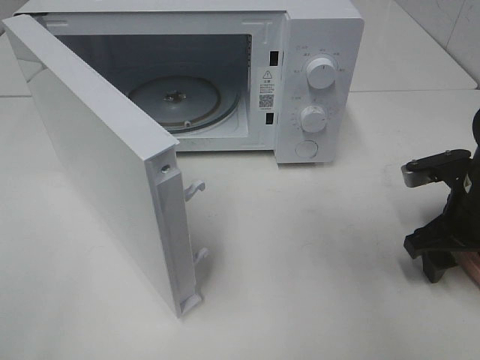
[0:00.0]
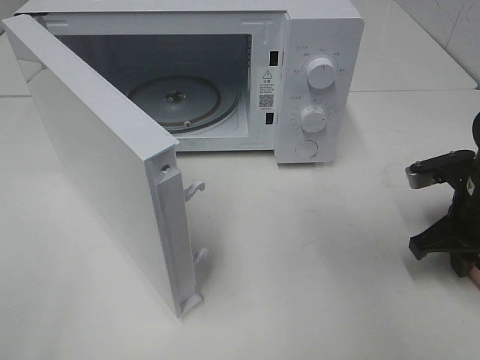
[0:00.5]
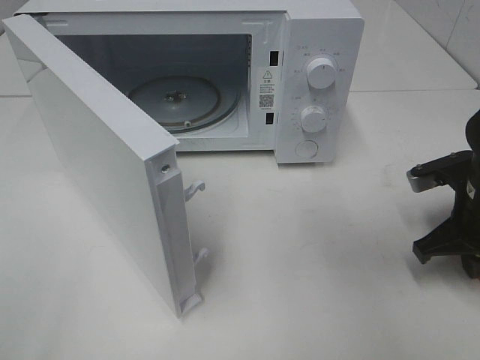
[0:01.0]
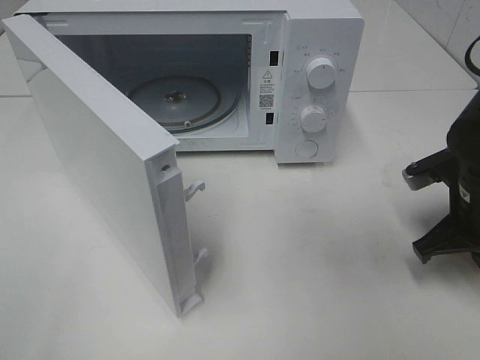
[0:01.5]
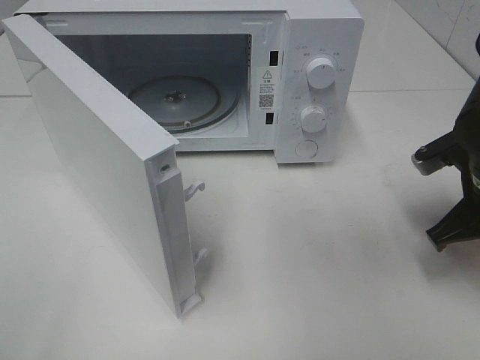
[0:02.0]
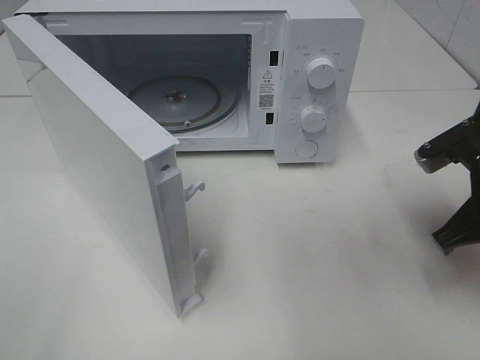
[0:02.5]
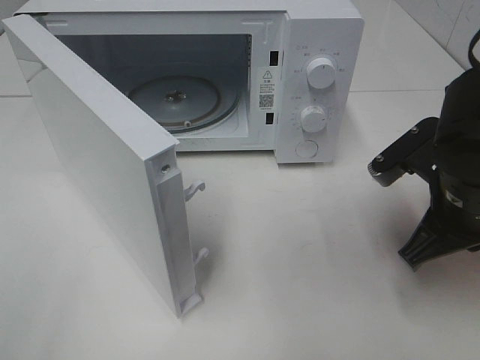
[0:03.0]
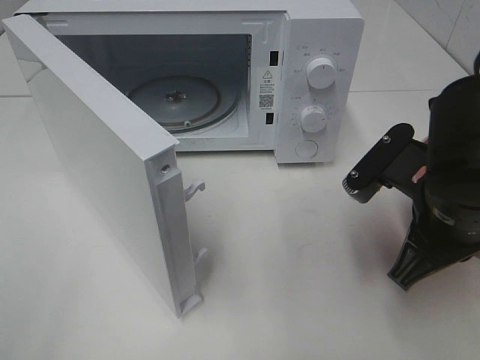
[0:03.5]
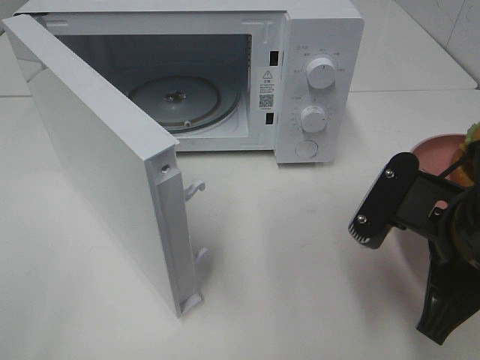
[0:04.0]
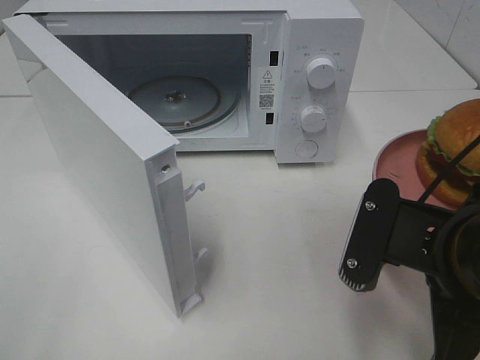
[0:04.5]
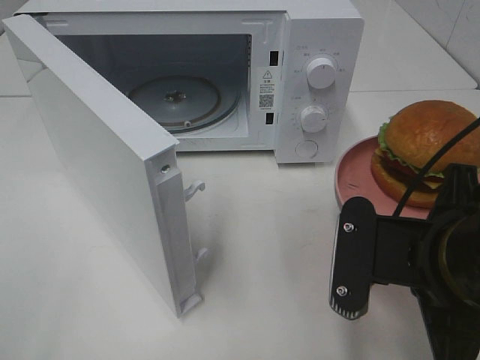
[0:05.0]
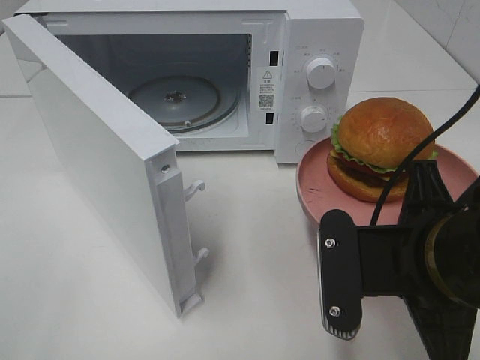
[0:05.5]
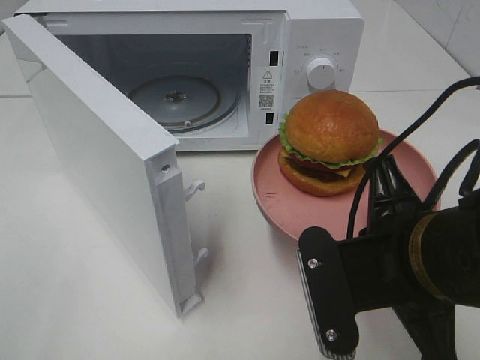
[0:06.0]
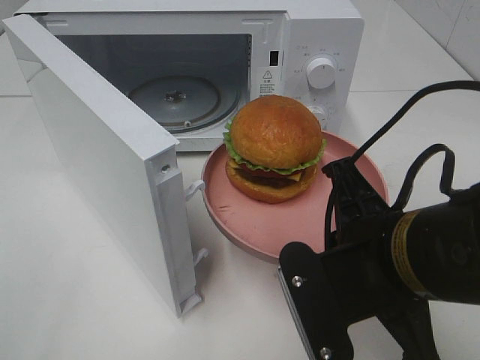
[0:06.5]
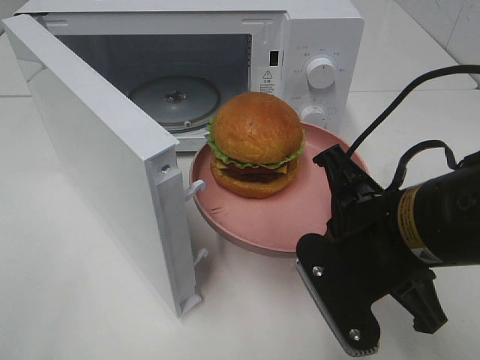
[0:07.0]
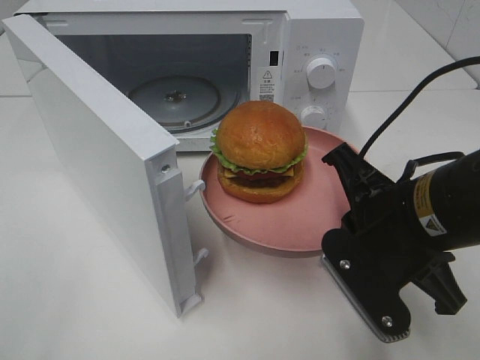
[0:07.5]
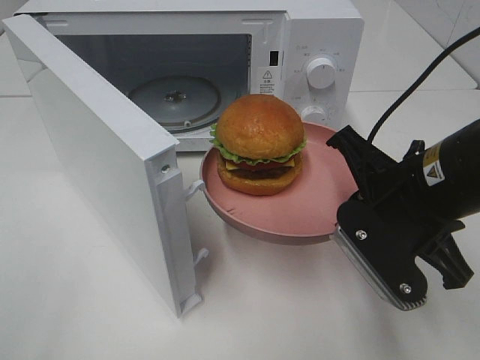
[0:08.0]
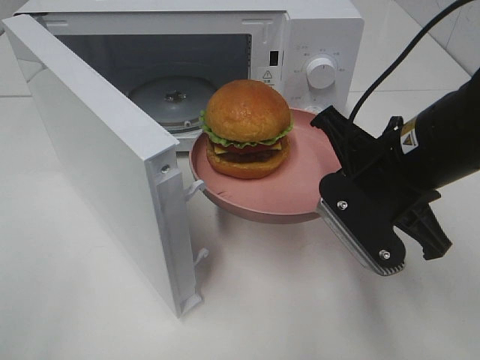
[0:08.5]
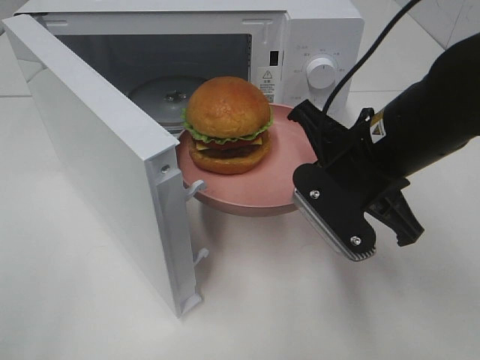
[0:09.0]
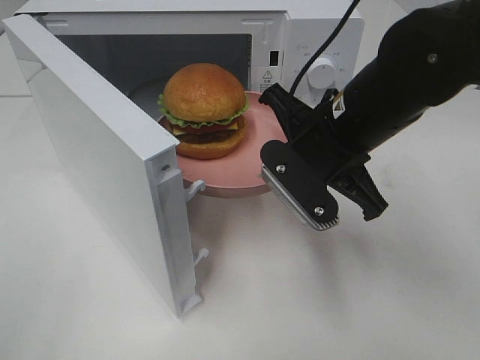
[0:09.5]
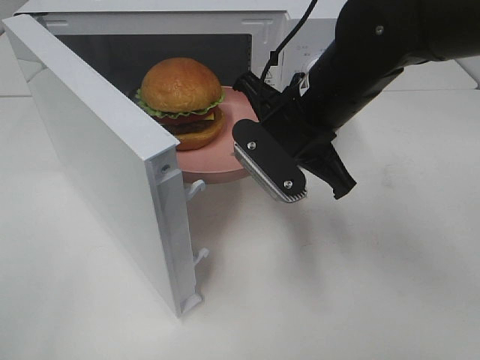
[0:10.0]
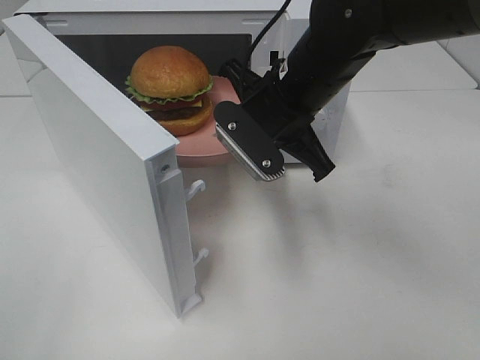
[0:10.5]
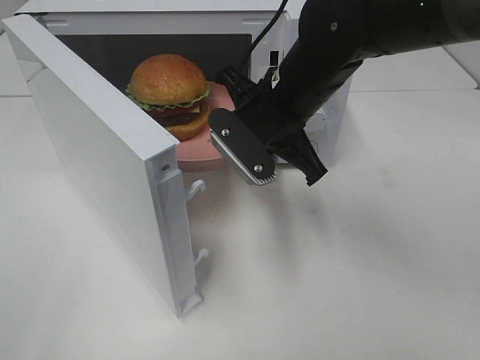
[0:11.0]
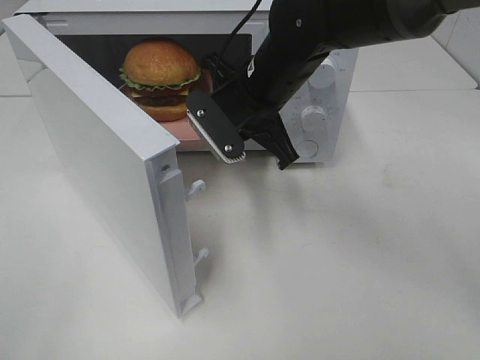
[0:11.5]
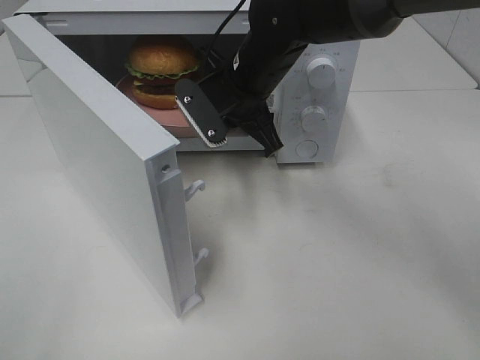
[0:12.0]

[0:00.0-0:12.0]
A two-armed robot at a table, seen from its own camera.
Task of the whole recording: Heat the burger.
0:00.0 to 0:02.0: The right gripper closes its fingers.
0:02.0 to 0:04.0: The right gripper travels backward and to the left by approximately 15 cm.
0:06.0 to 0:08.0: The right gripper travels forward by about 5 cm.
0:08.0 to 0:10.0: The right gripper moves forward and to the left, about 10 cm.
0:10.0 to 0:12.0: The right gripper moves forward and to the left, some 10 cm.

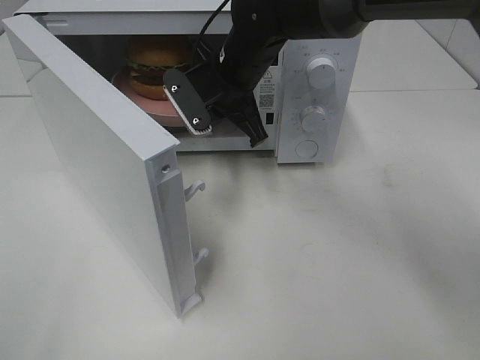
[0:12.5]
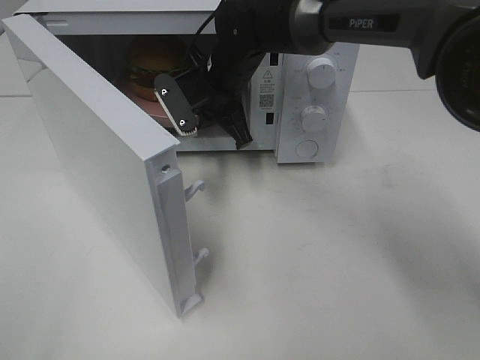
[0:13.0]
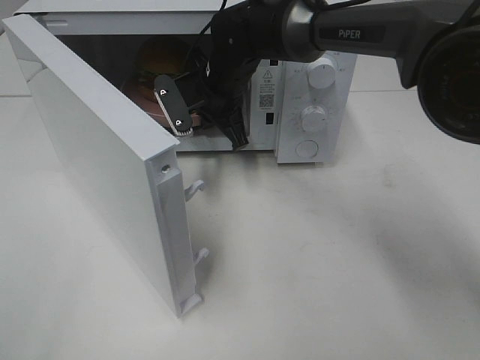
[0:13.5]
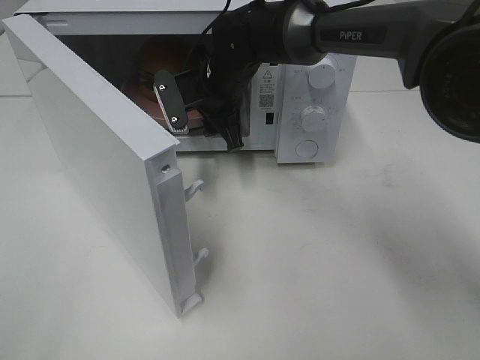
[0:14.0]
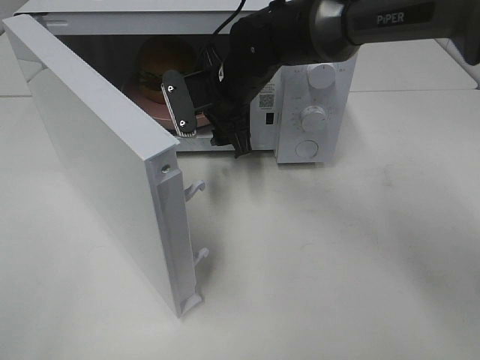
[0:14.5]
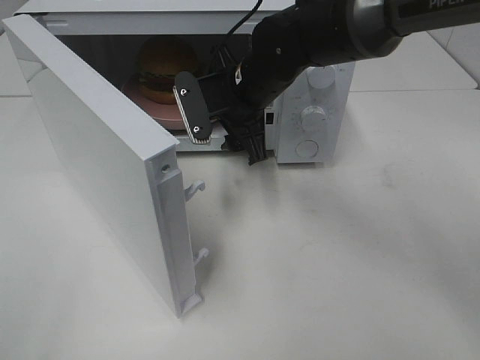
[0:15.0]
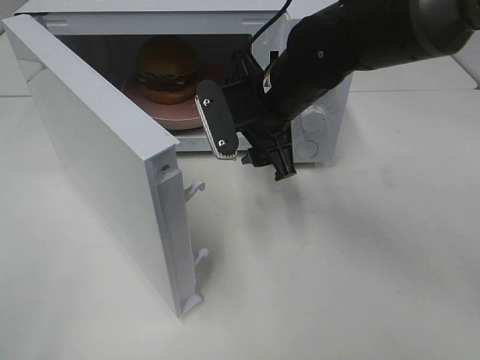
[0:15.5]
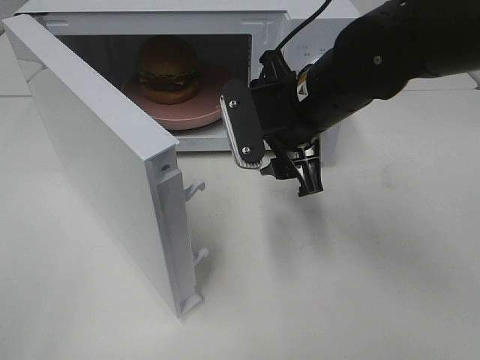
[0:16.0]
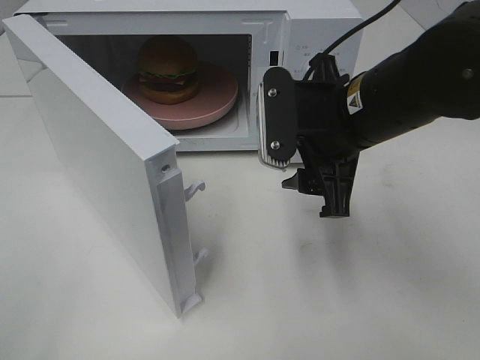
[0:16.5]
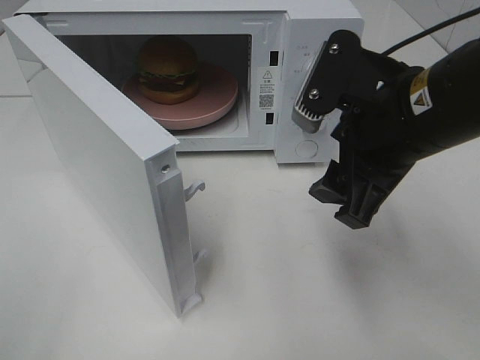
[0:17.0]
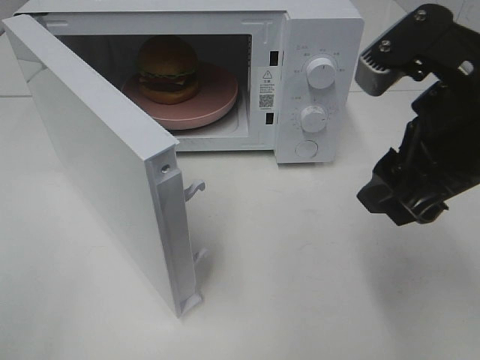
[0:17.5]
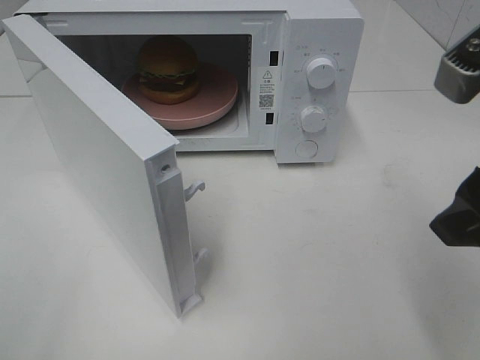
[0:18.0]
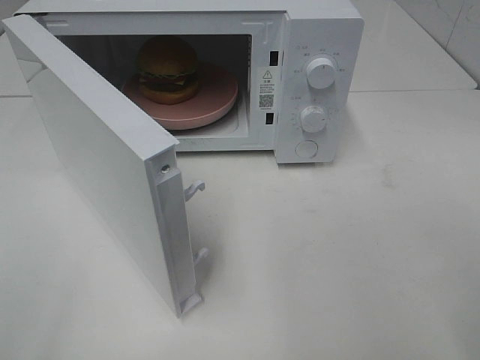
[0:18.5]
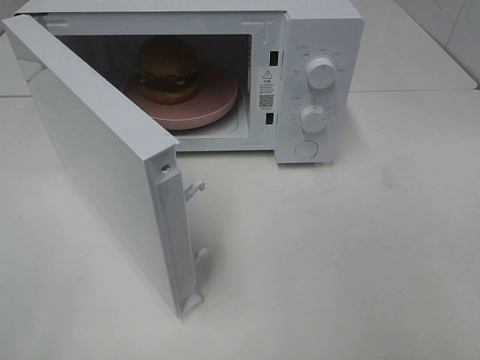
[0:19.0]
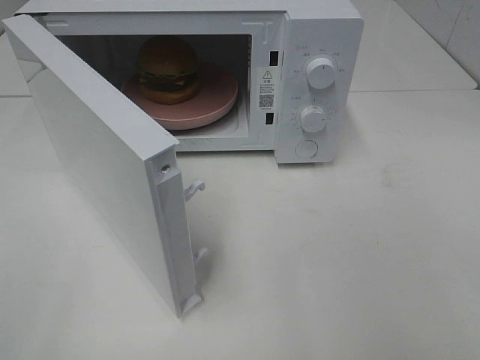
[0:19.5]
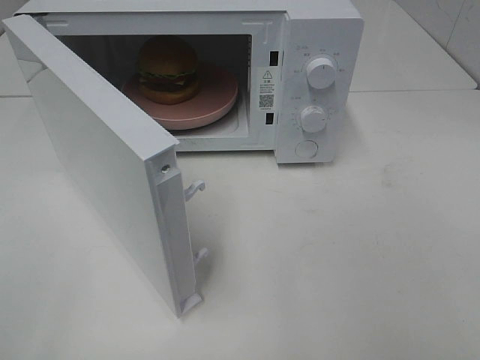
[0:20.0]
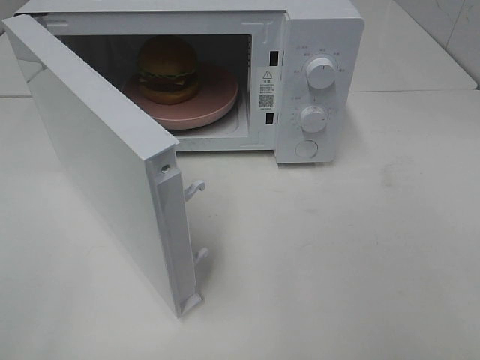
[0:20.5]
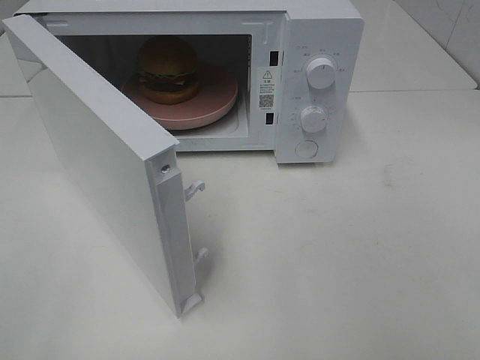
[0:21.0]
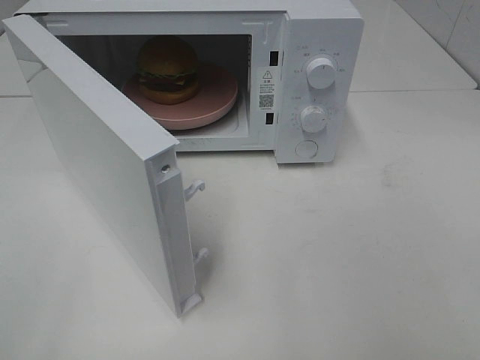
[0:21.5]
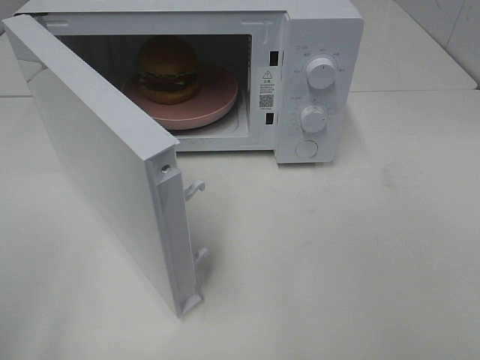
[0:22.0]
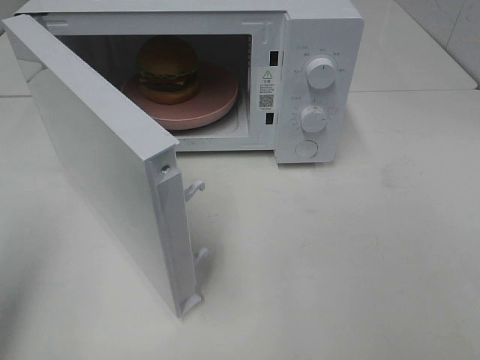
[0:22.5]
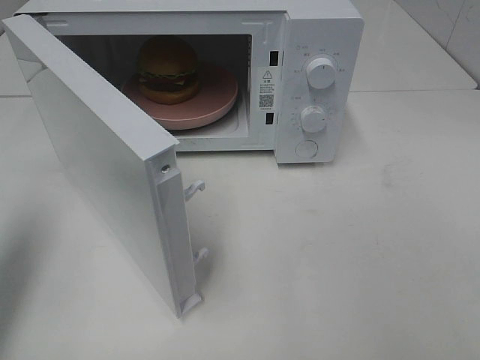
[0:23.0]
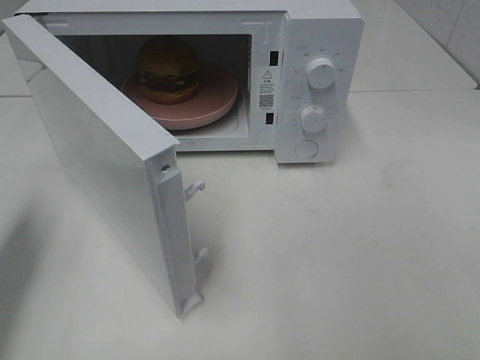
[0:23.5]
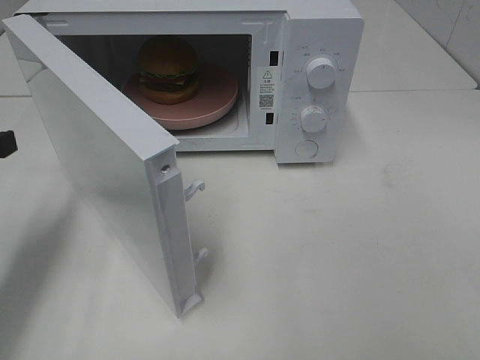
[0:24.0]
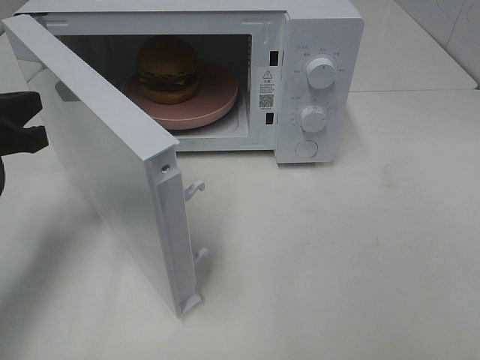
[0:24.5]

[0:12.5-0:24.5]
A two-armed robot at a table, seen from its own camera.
Task of the whole recording: Heat the burger.
0:12.5 to 0:14.5: The right gripper opens up.
0:14.5 to 0:16.5: The right gripper shifts some 20 cm backward and to the right.
0:16.5 to 0:18.5: The right gripper heads backward, to the right and upward, covering some 20 cm.
0:20.5 to 0:22.5: The left gripper goes some 15 cm forward, and closes its fingers.
0:22.5 to 0:24.5: The left gripper travels forward and downward by some 15 cm.

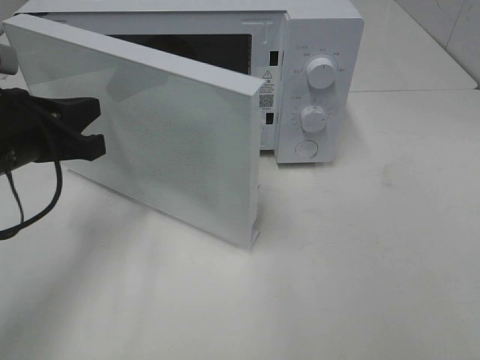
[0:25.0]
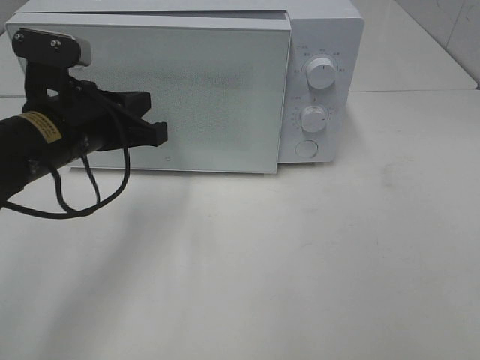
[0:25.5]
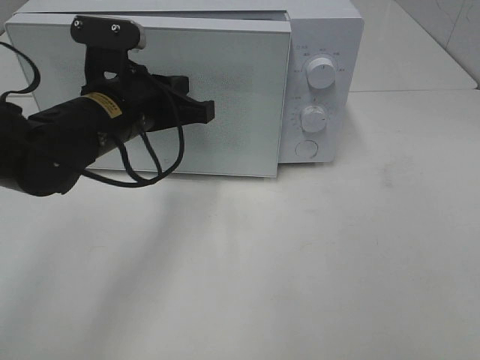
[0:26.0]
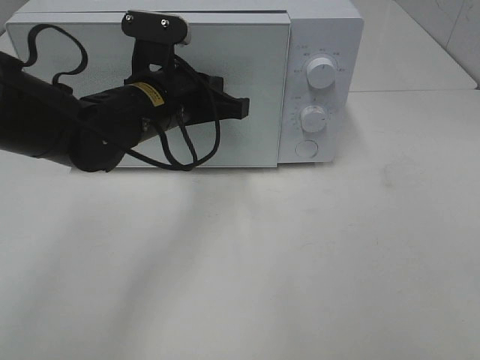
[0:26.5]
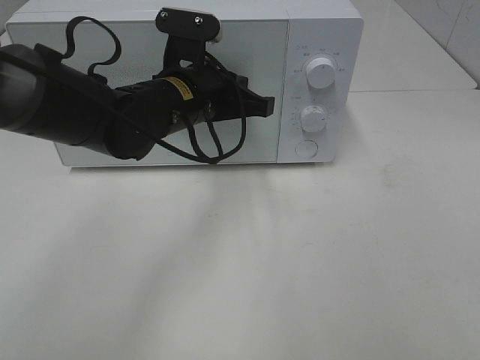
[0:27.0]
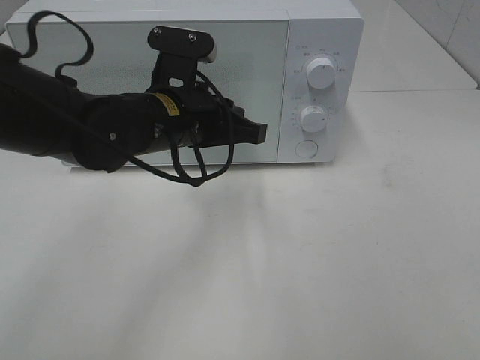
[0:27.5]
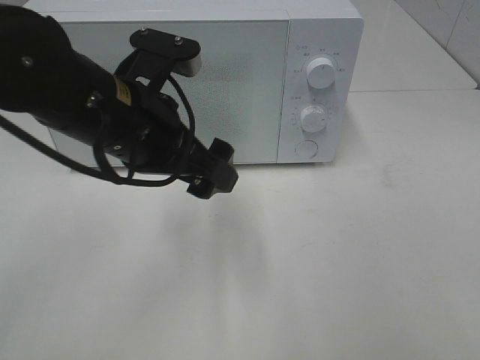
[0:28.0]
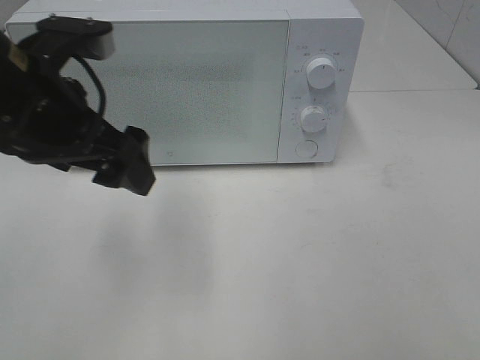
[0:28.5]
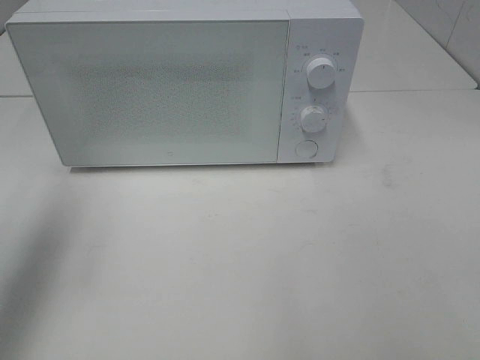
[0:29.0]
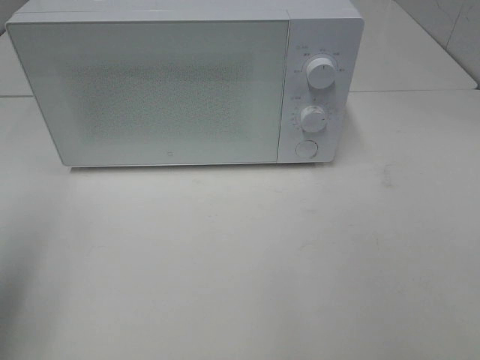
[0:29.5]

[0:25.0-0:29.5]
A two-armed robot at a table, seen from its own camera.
Task of the whole recording: Heat the burger.
Step, 0:25.0 to 0:27.5: Left hand: close the microwave door.
0:25.0 to 0:27.0: The left gripper is displaced to the right and forward by some 20 cm.
0:27.0 to 0:29.5: The left gripper is displaced to the left, backward and upward by approximately 35 cm, and opens up.
